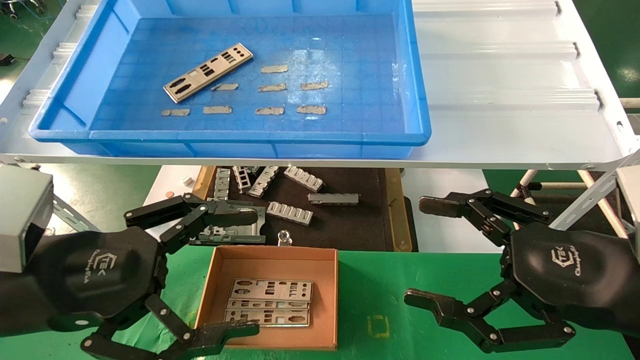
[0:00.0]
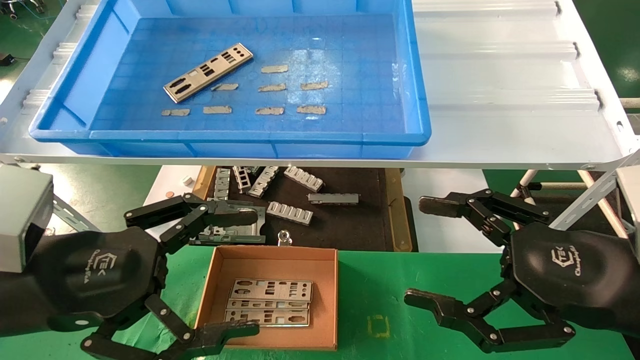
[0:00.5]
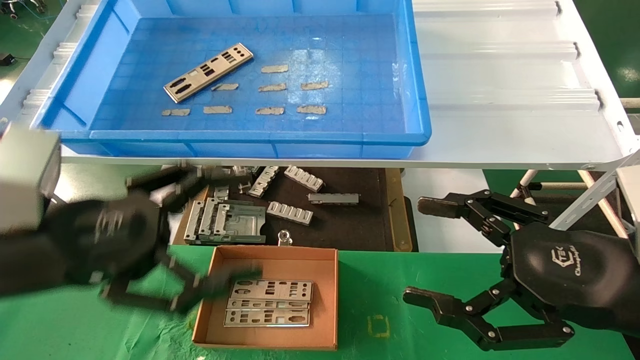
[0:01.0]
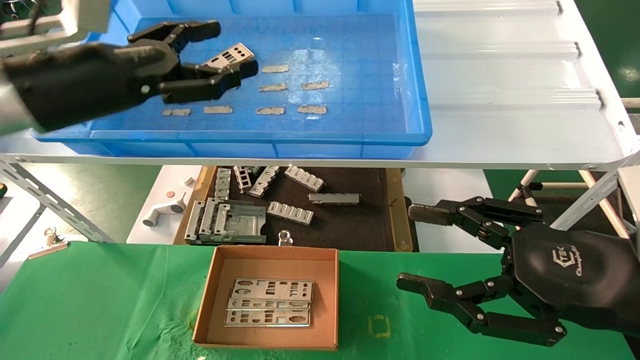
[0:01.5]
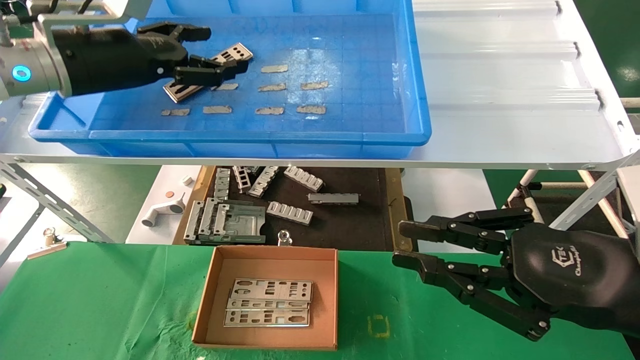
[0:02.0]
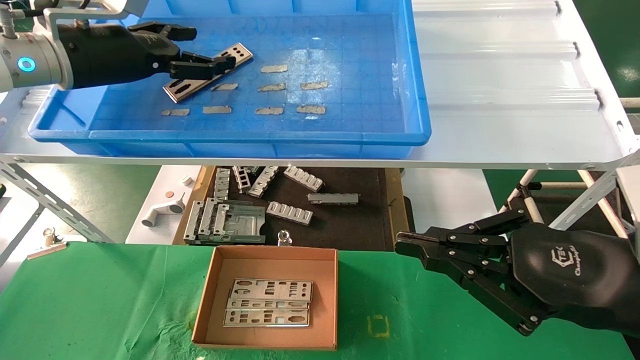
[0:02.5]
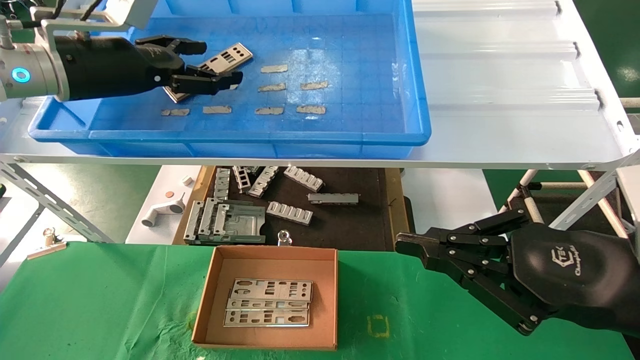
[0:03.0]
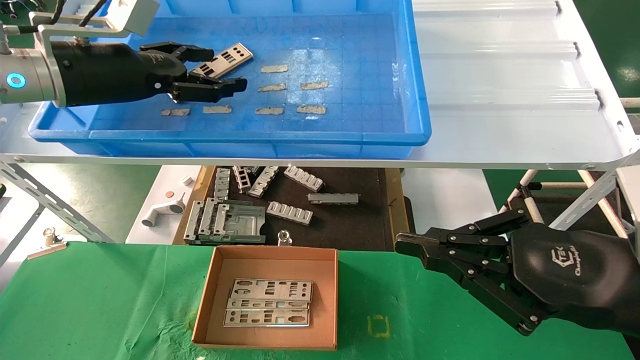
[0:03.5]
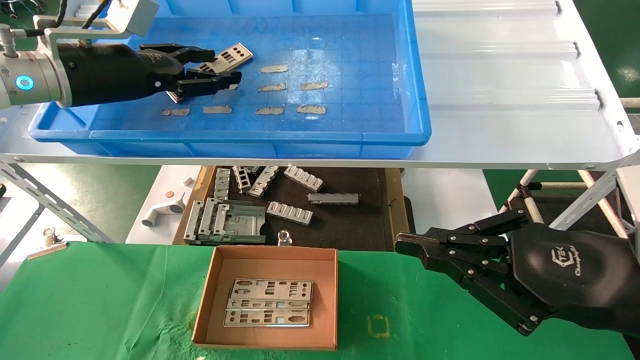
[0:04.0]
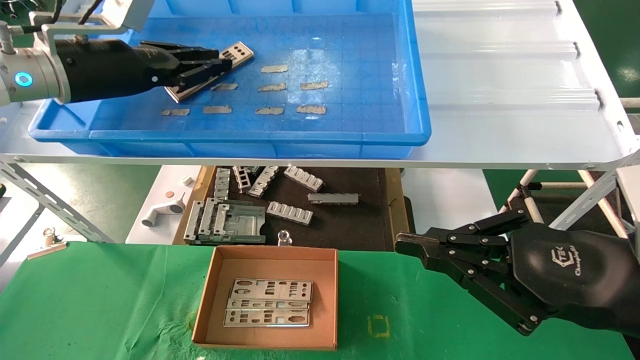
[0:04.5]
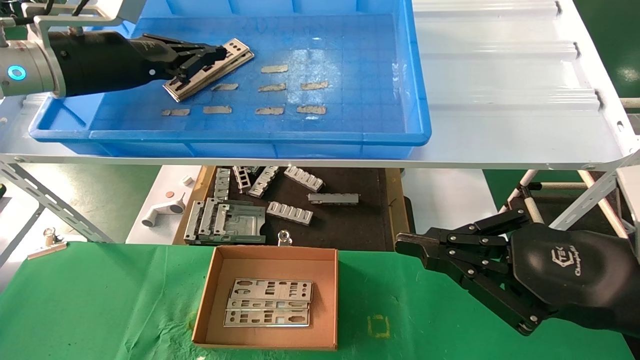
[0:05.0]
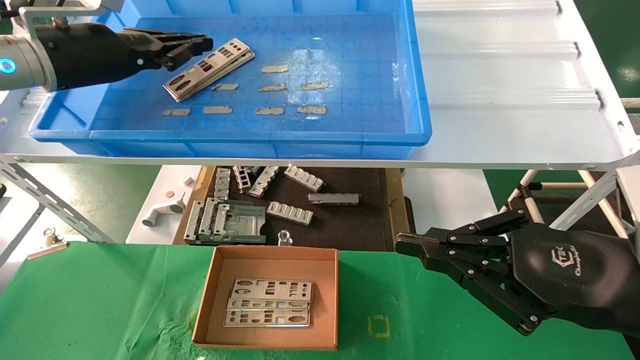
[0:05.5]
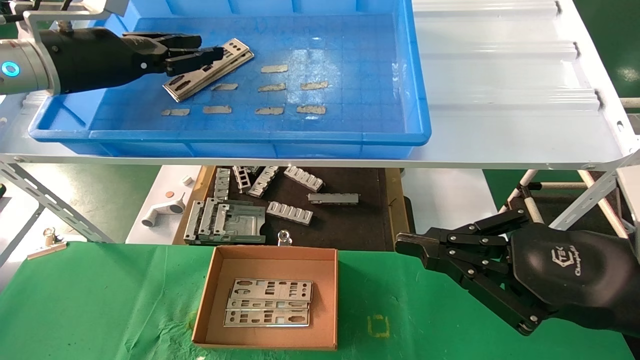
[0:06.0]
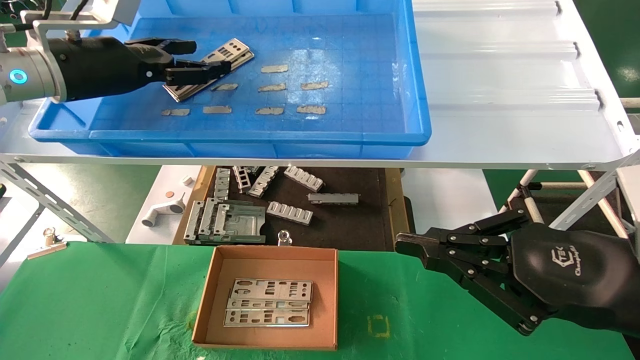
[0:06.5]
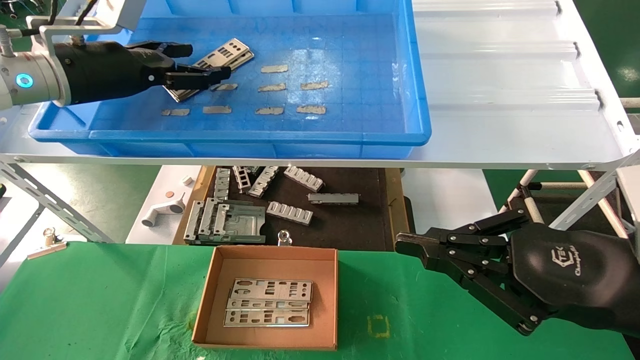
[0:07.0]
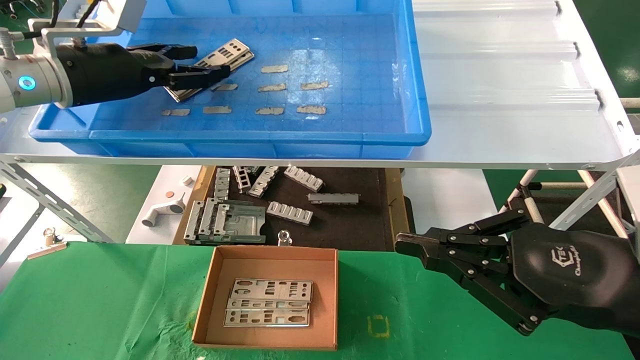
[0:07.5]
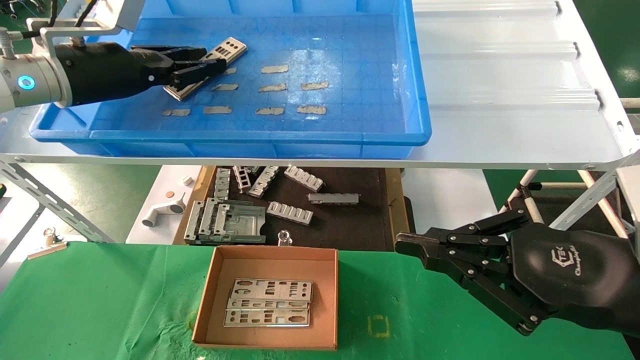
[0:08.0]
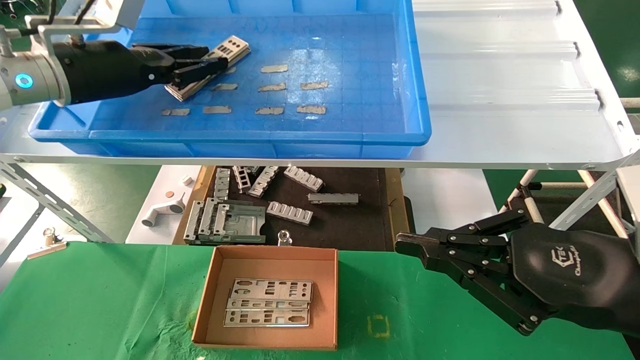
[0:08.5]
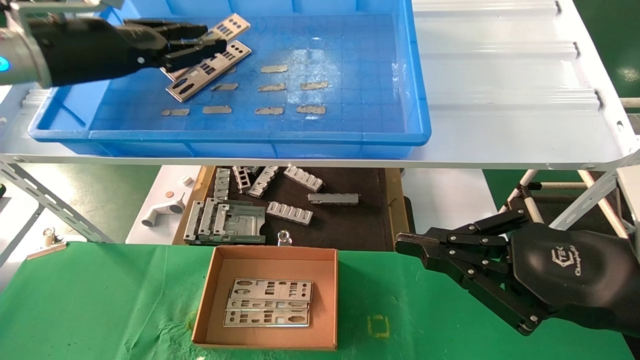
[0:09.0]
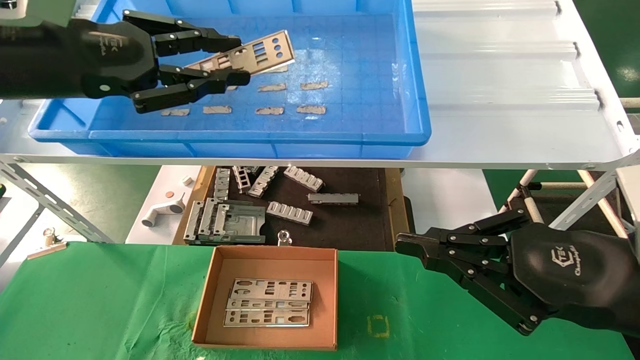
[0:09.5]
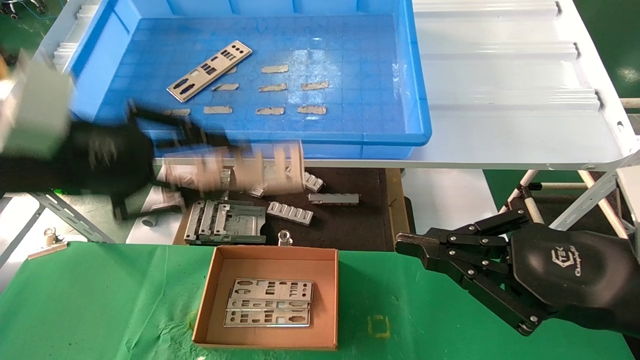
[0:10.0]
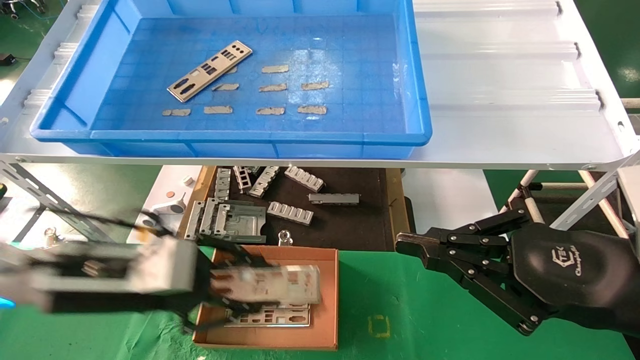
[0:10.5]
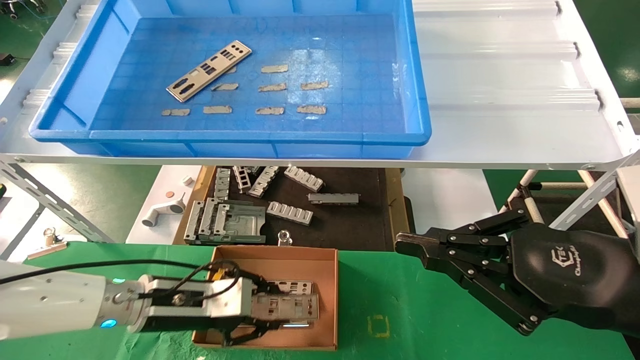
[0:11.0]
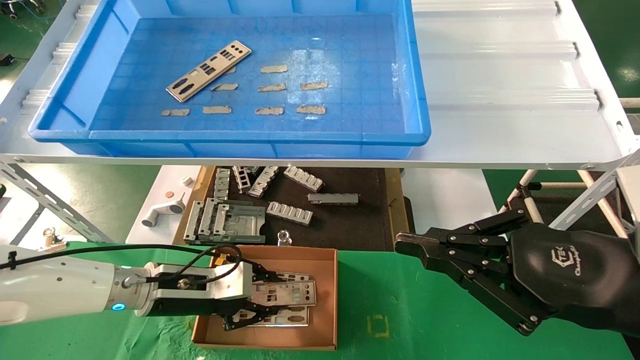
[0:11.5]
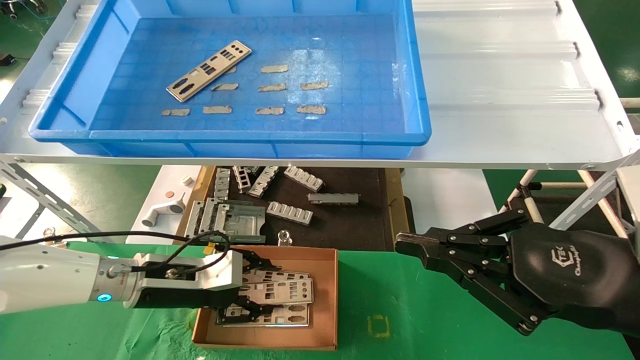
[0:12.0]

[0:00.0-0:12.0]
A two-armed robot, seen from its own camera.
Task of the whole recording: pick up the parts on the tray and put them in the cardboard box.
Step, 0:01.5 to 0:08.5: Pick up the IO bracket from the container box.
Step, 0:09.0 to 0:11.5: Place the IO bracket into the ingredient slot.
0:00.0 to 0:02.0: The left gripper heads forward and upward, covering about 25 cm, while the right gripper closes its fingers.
0:02.0 to 0:04.0: The right gripper closes its fingers.
0:04.0 to 0:06.0: The left gripper closes its fingers.
0:06.0 to 0:08.0: The left gripper opens, then closes again.
0:08.0 to 0:10.0: The left gripper shifts roughly 15 cm backward.
0:10.0 to 0:12.0: The left gripper moves downward and forward, roughly 25 cm.

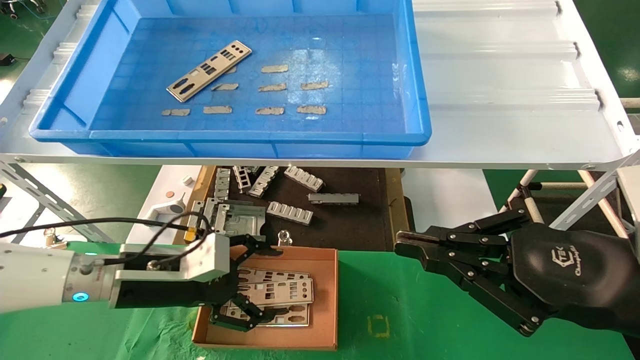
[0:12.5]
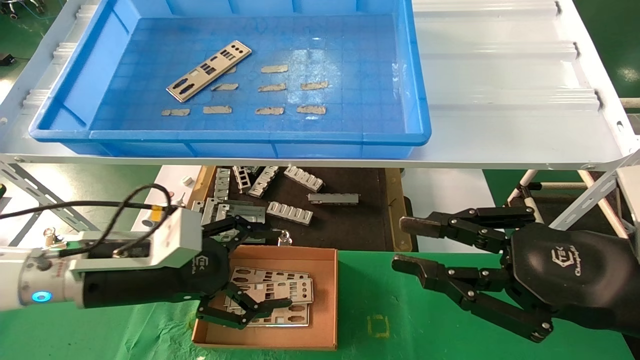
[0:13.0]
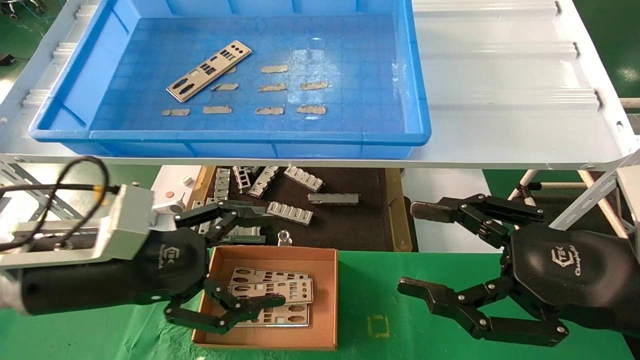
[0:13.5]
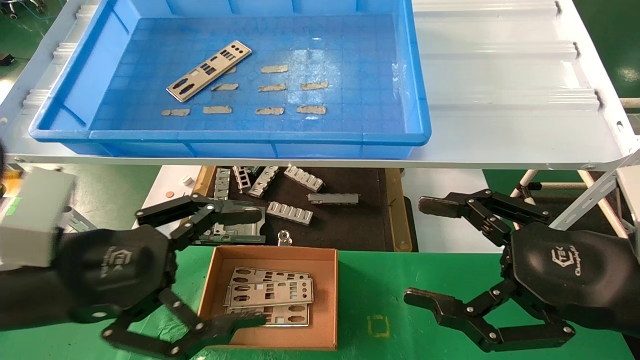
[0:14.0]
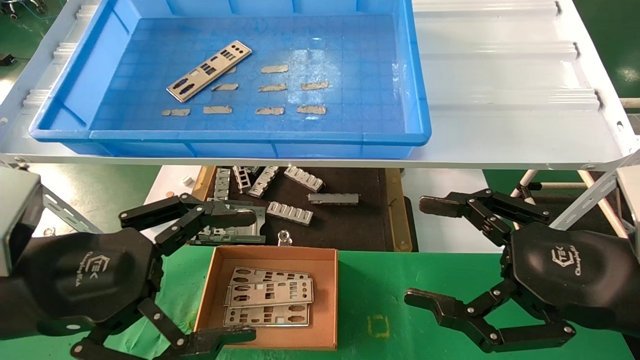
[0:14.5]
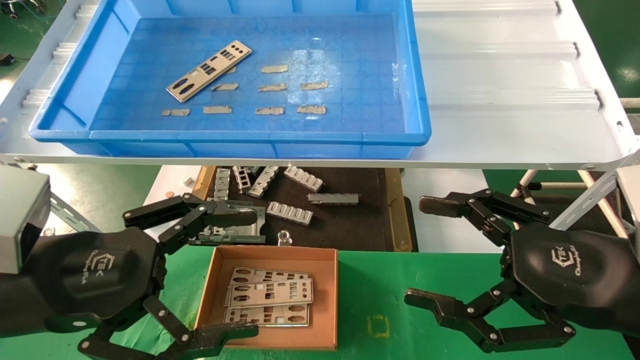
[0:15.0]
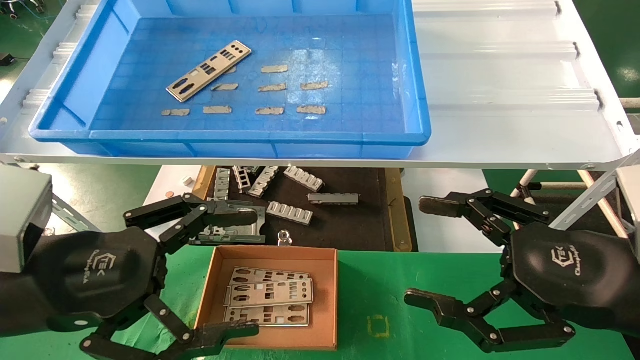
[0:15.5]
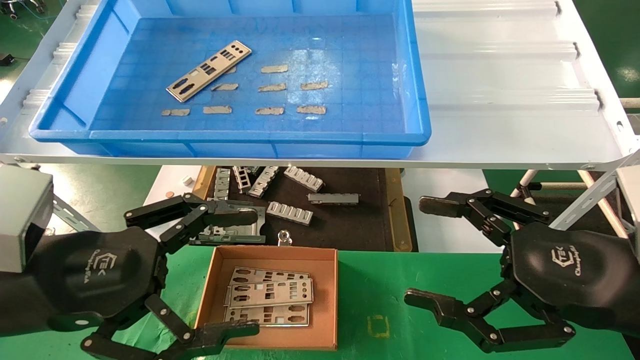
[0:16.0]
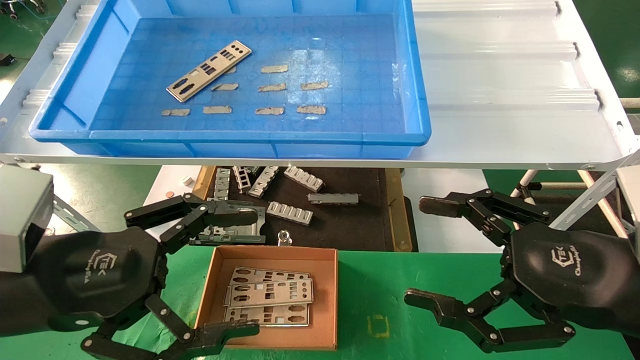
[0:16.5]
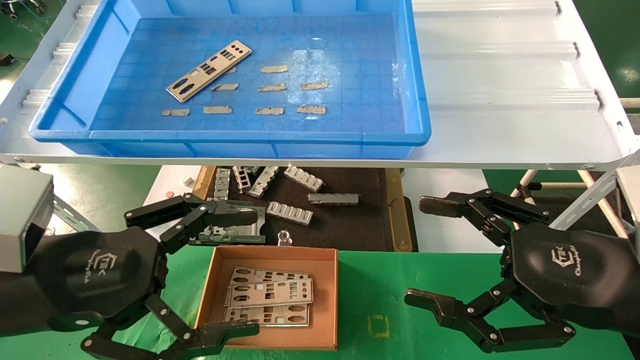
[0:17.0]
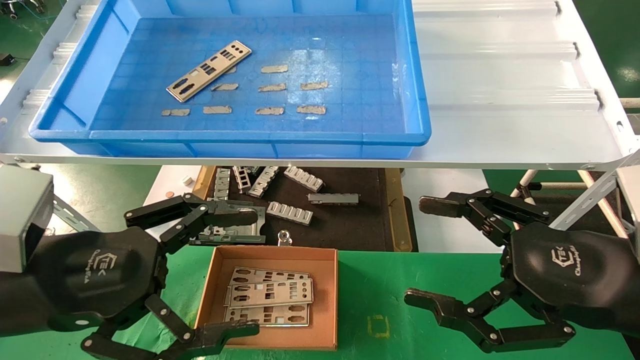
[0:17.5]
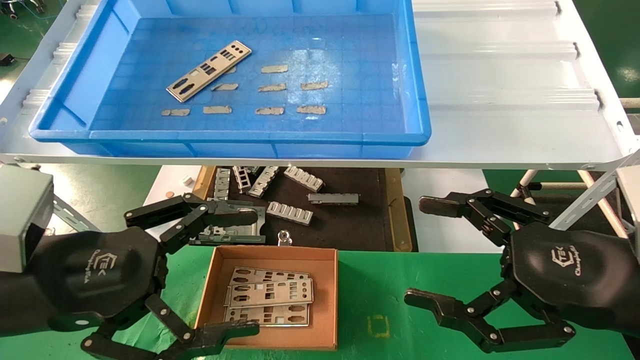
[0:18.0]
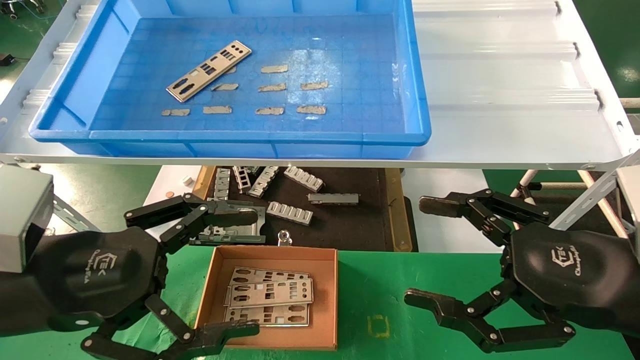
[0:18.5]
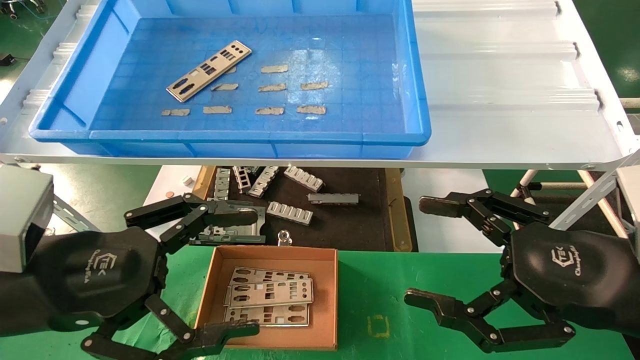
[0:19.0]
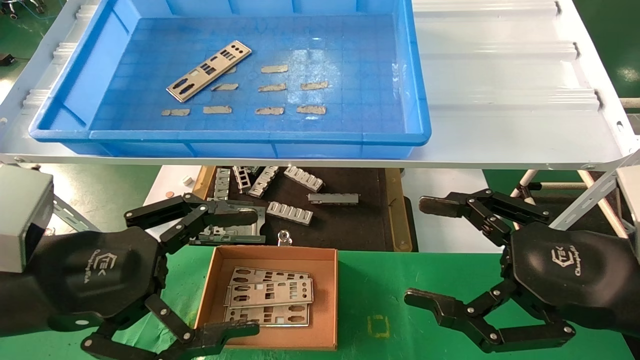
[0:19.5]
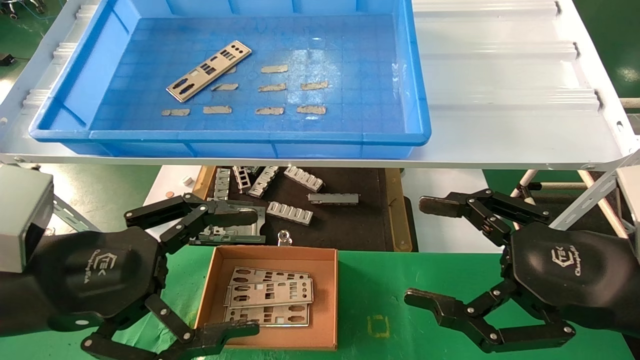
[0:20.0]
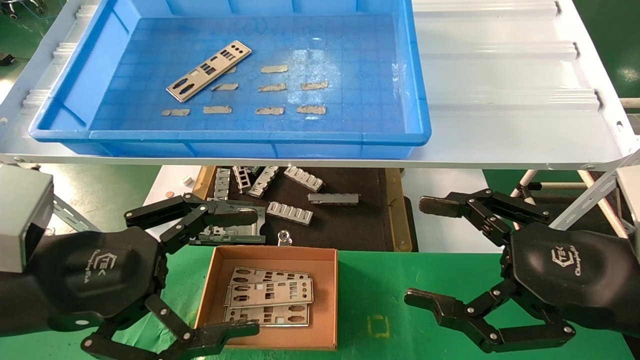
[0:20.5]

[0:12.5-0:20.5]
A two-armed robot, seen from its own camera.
Task of the whole recording: pick up the parts on the tray and put them in the cardboard box.
0:12.5 to 0:14.5: The left gripper goes roughly 20 cm backward and upward. The right gripper opens its fingers.
0:14.5 to 0:20.5: Neither gripper changes place.
